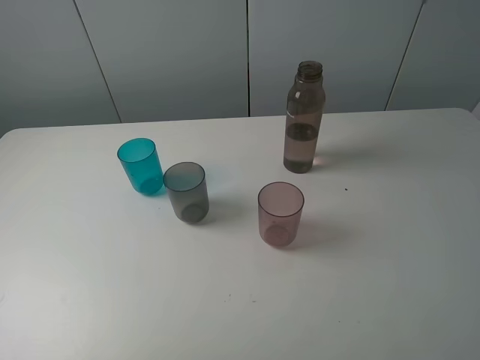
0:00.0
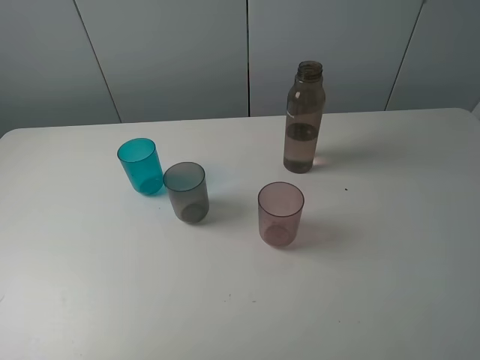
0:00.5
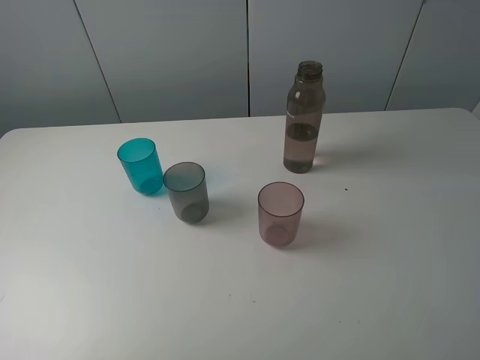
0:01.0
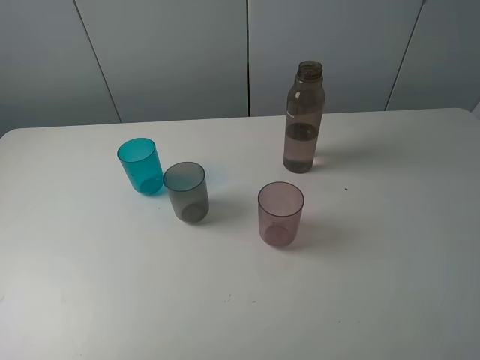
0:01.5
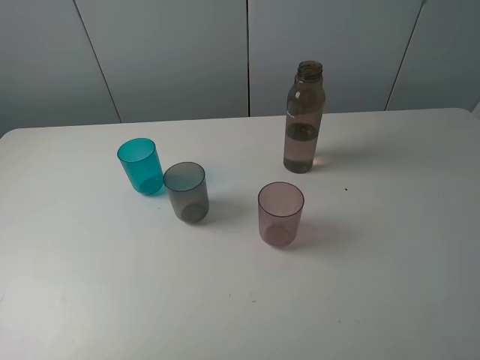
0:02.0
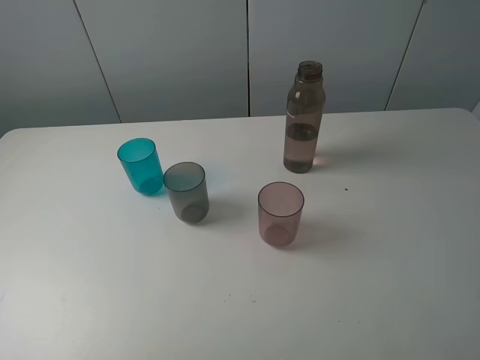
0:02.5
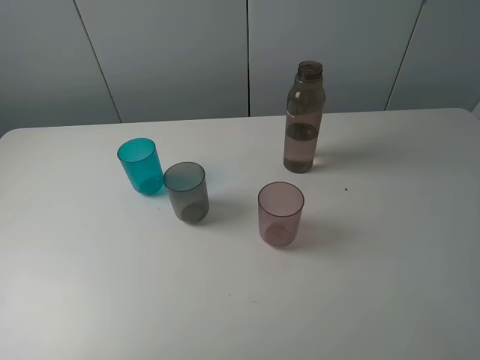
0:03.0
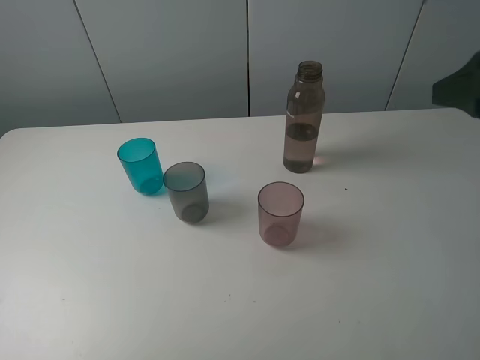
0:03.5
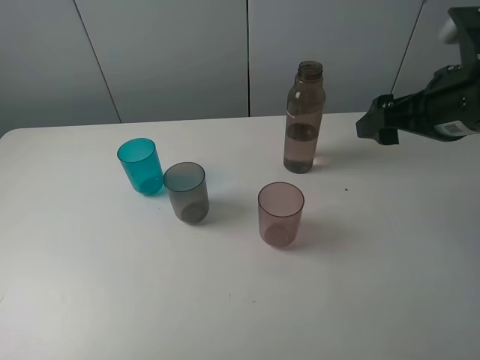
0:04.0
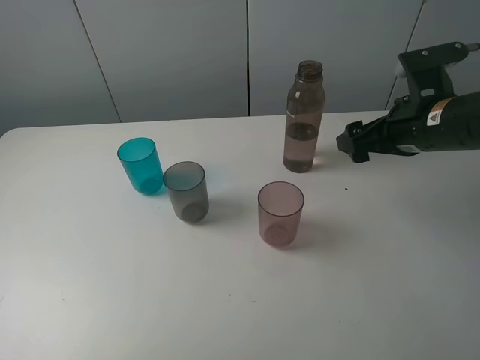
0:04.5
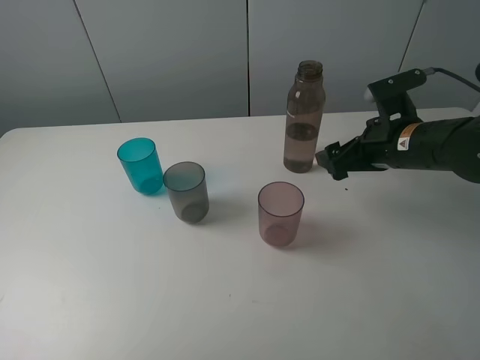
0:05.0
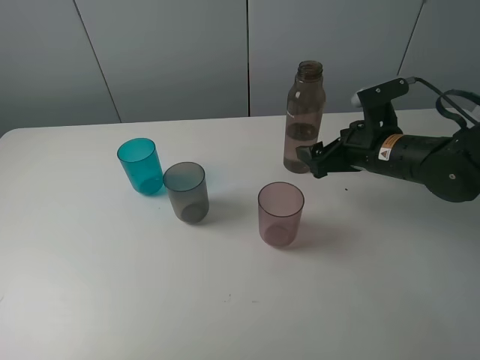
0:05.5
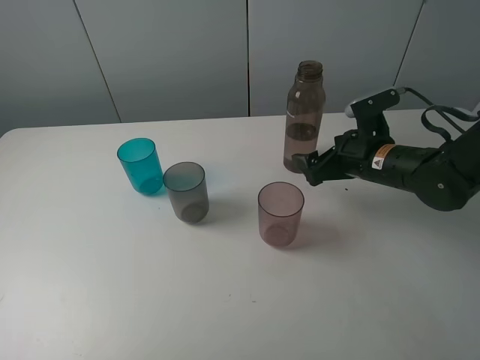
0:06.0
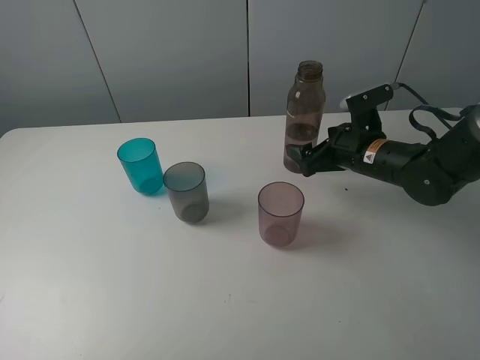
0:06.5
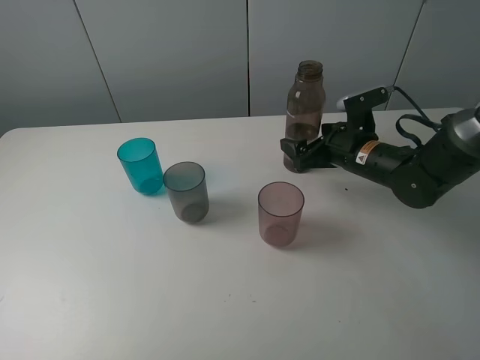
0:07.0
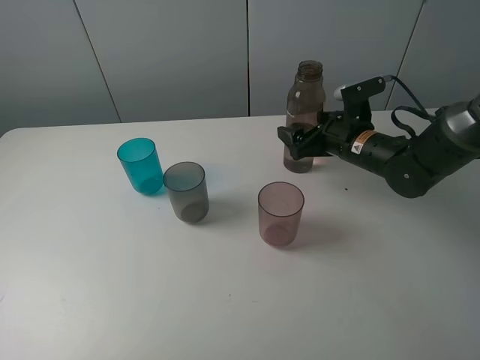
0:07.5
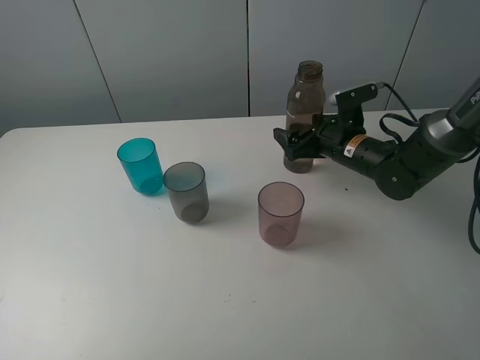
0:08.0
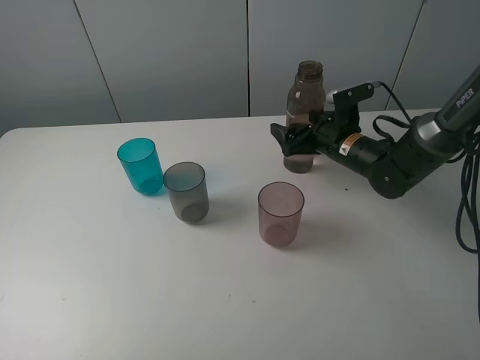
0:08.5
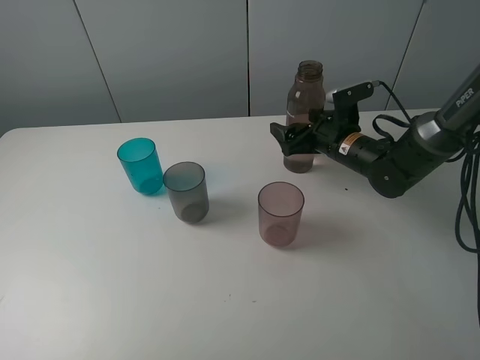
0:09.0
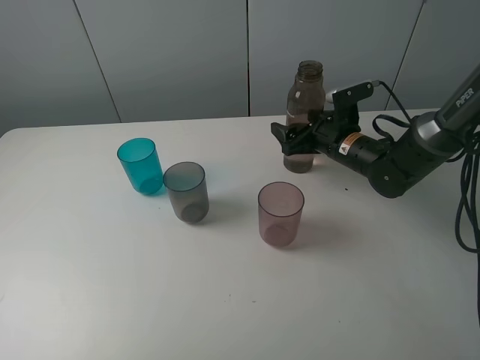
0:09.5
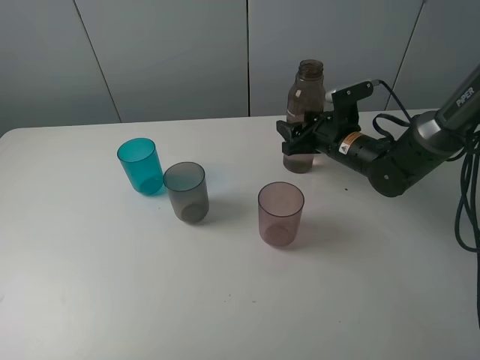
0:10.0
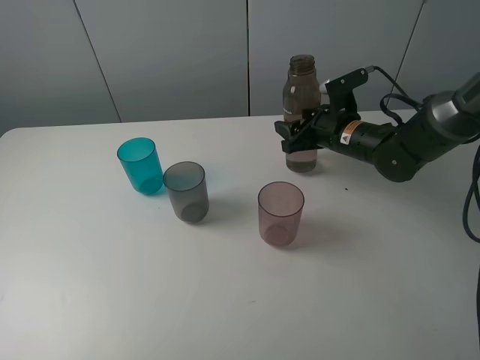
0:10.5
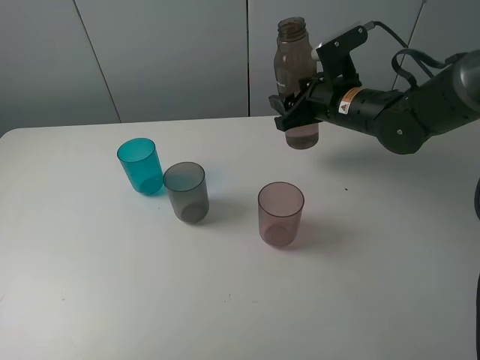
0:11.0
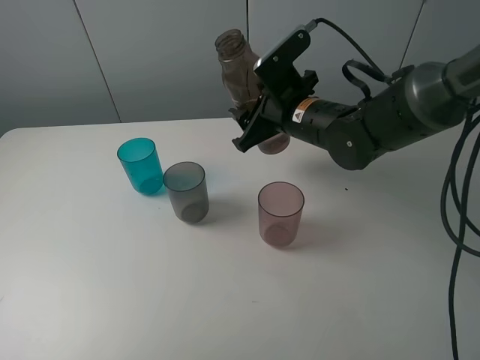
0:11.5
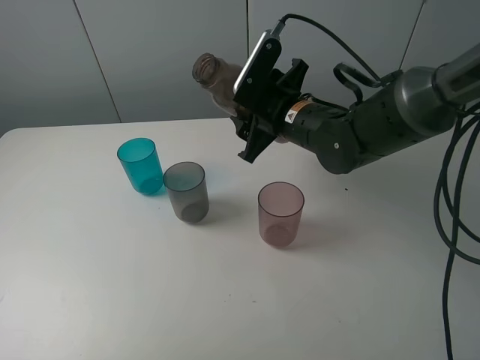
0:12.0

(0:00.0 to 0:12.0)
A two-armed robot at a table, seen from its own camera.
Task of the whole recording: pick up the bottle filled with water and pour water into the middle cup of the three cups.
Step, 0:00.0 - 0:10.0: Grasp the transparent bottle with the right gripper.
0:00.0 - 0:02.0: The two grippers keep their place.
0:02.0 - 0:04.0: The right gripper is displaced forward by approximately 25 cm.
0:04.0 - 0:06.0: The right gripper is displaced downward and forward by about 15 cm.
0:06.0 - 0:08.0: The right gripper heads forward, covering roughly 5 cm.
0:08.0 - 0:10.0: The right gripper closes its fingers.
0:10.0 - 0:12.0: The right gripper travels to the left and upward by about 15 cm.

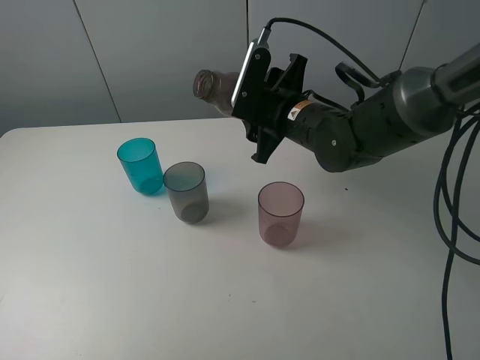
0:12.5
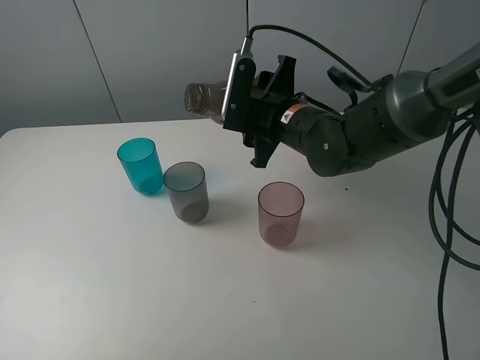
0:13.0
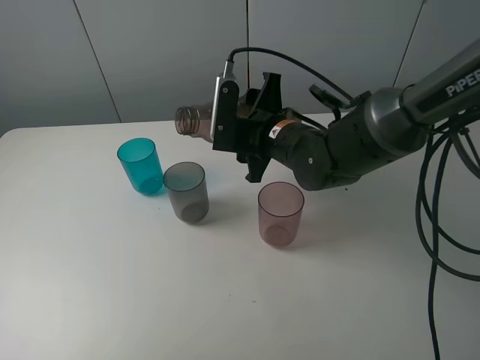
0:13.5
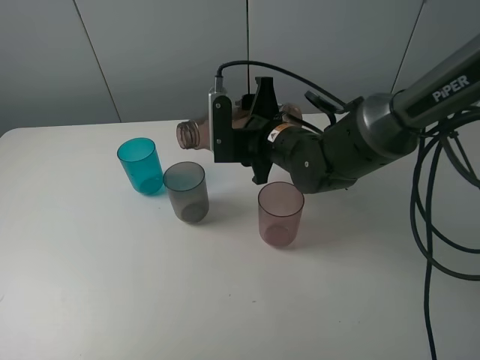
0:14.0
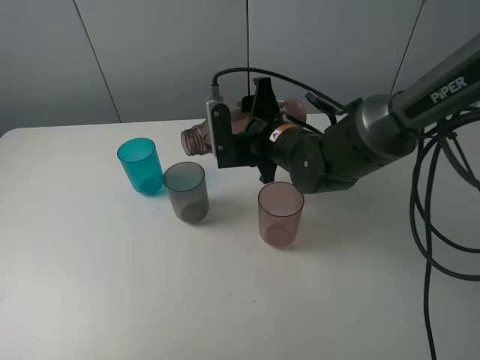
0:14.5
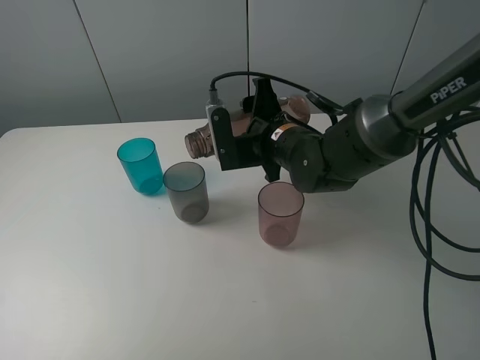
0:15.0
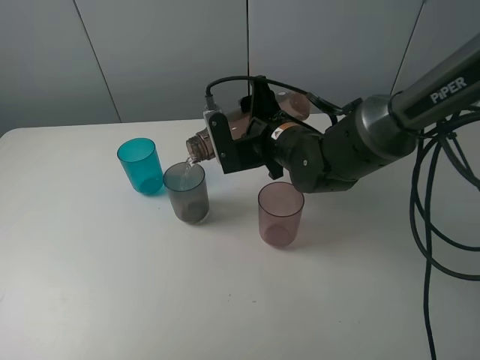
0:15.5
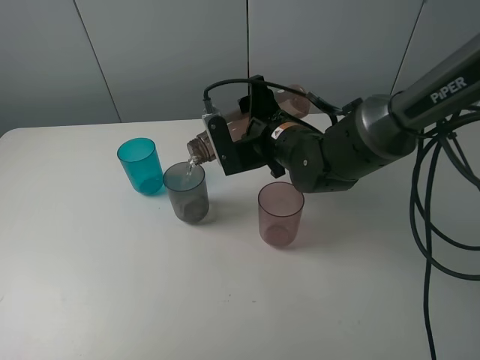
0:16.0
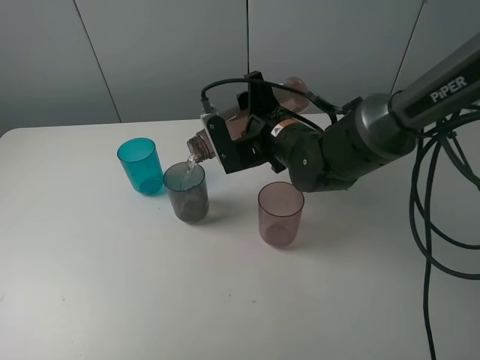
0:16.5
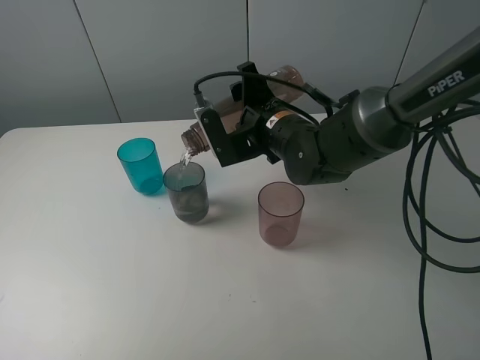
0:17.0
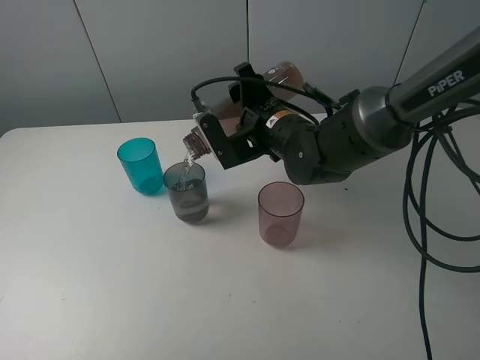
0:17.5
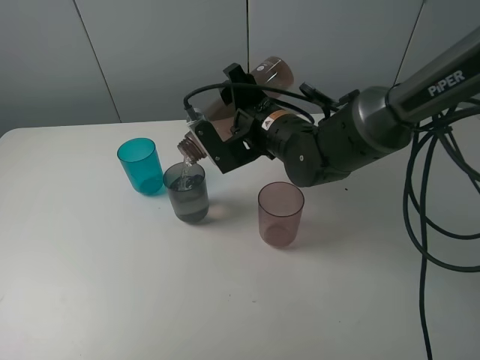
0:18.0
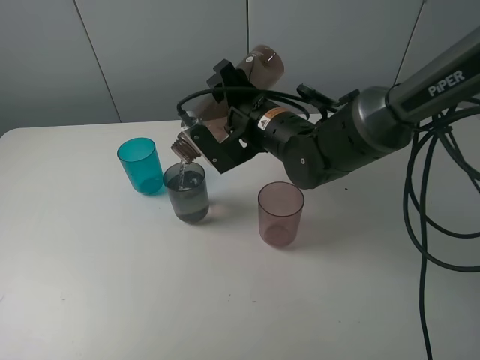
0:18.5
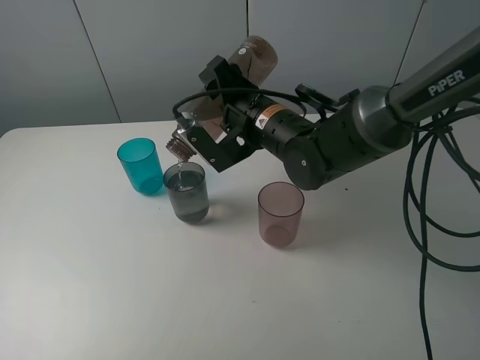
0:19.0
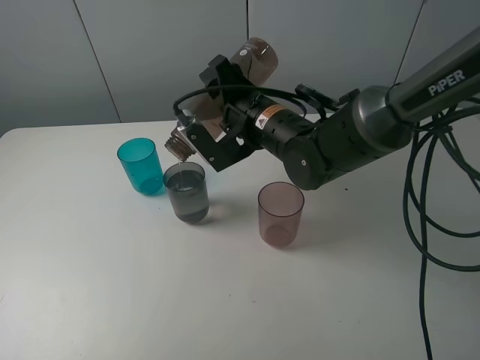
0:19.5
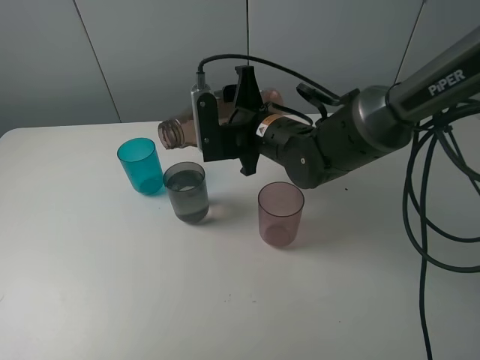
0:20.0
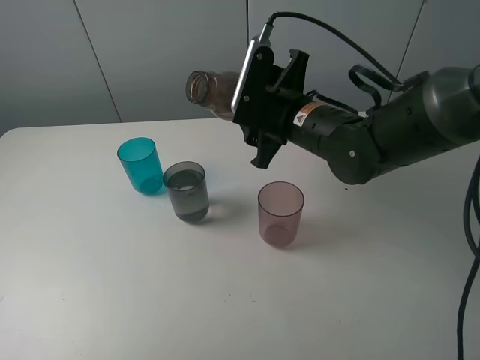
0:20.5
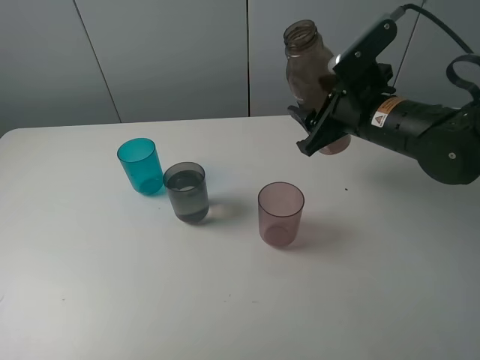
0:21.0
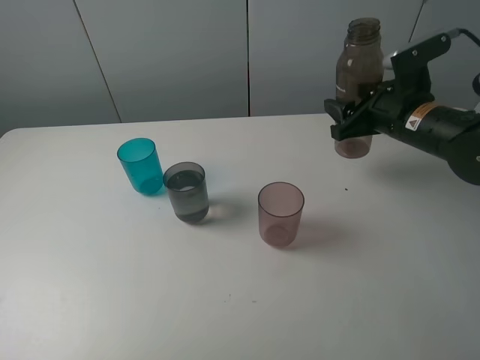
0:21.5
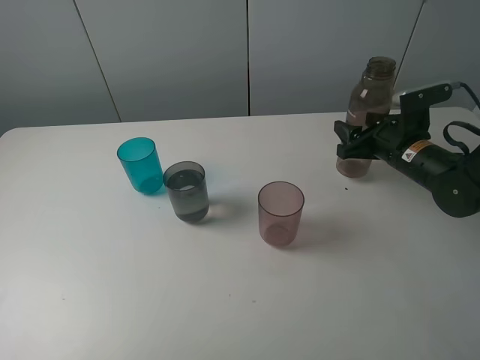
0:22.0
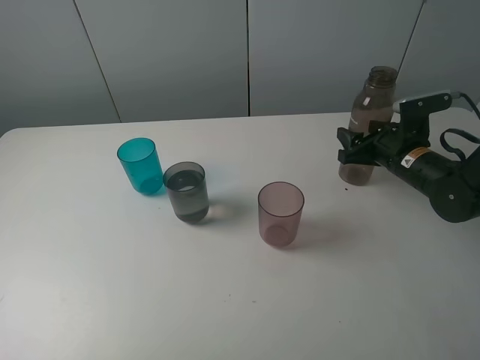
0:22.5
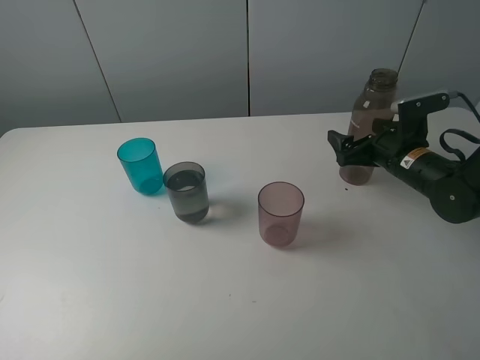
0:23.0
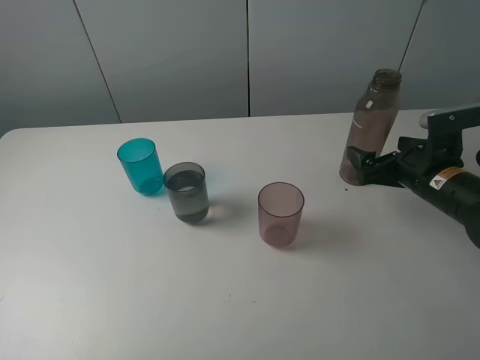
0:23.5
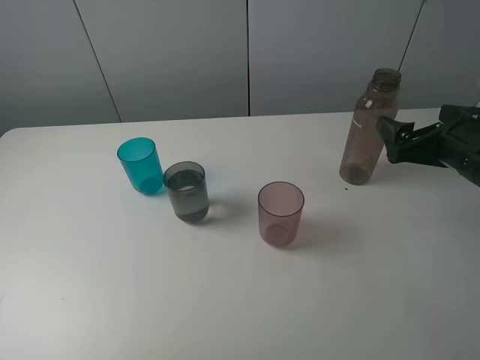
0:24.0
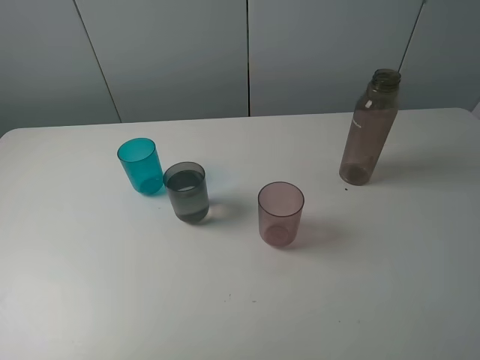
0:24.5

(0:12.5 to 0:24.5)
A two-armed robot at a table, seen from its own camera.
Task of the whole recording: pick up the bottle filled with water and pour water into the middle cup of the three cups.
Step, 0:12.5 - 0:20.0: Pour water from transparent bottle to grey cup with the right gripper.
Step, 0:20.5 - 0:24.0: Place the transparent bottle with the right gripper.
0:14.5 - 0:16.5: The grippers make only small movements.
0:16.5 - 0:18.5: The grippers make only small movements.
0:18.5 - 0:20.5: The right gripper shifts by about 5 cm.
0:20.5 - 0:22.5: The right gripper moves to the right and downward, some 20 cm.
0:22.5 - 0:24.5: The right gripper is displaced upward and backward by roughly 35 cm, and opens its fingers.

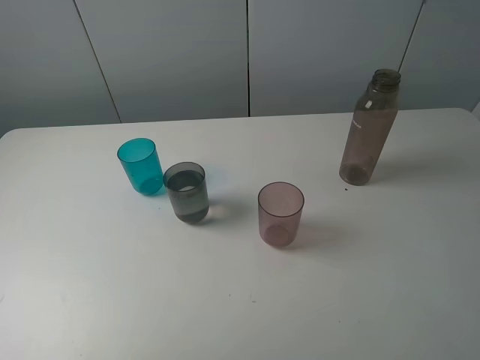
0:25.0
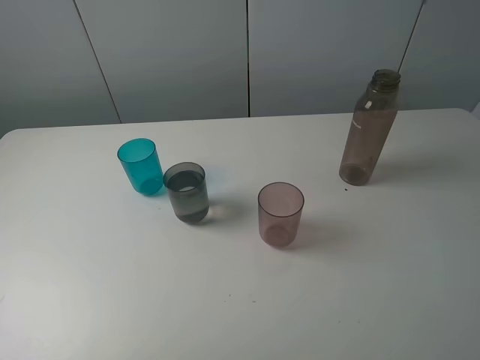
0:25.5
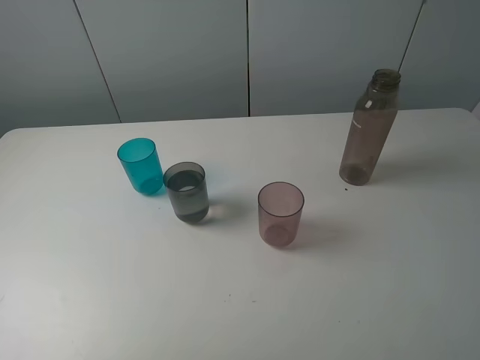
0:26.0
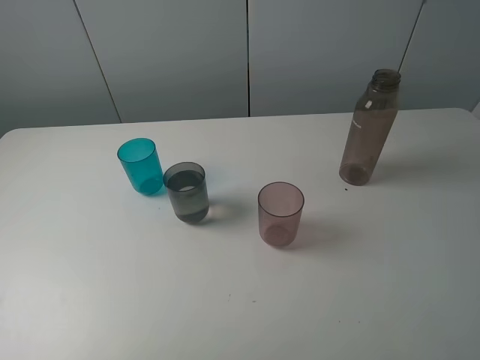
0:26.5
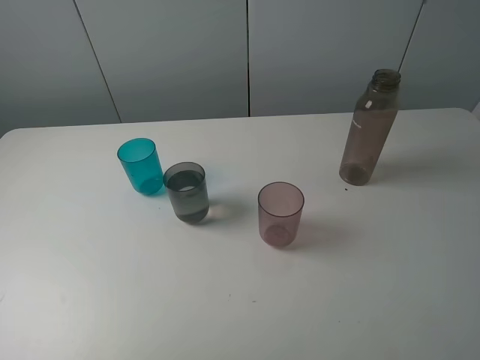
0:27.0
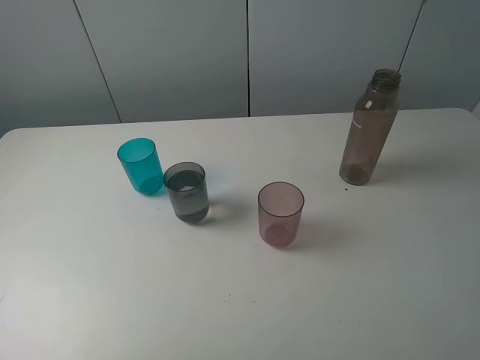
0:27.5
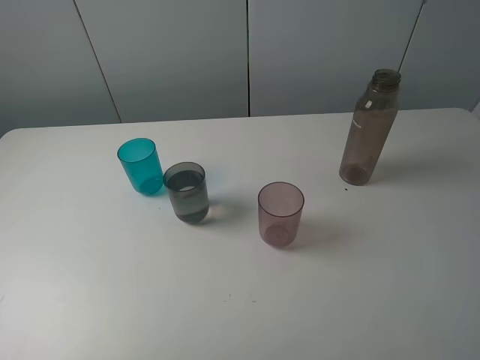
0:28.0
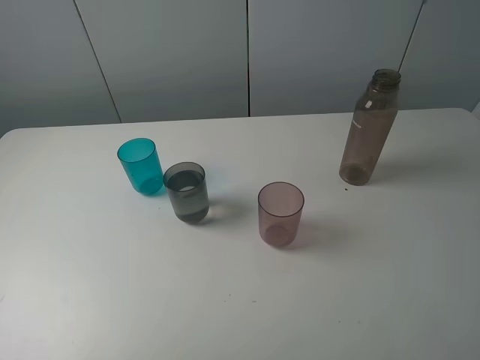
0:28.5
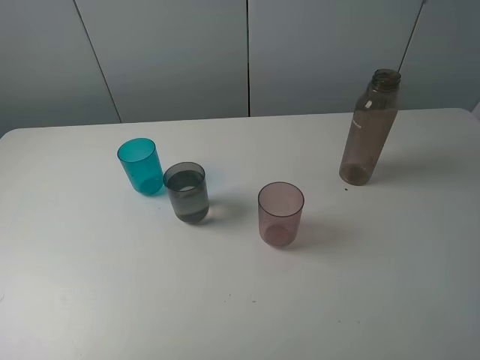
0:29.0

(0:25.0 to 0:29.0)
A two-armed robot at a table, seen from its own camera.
Task of the whole recording: pick up the bottle filled with water and pour water into the middle cup of the three cups.
0:27.0 - 0:29.0: Both grippers stay about where they are.
